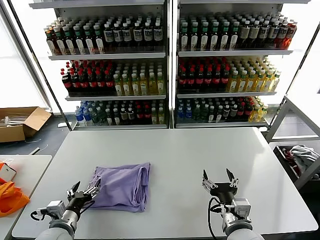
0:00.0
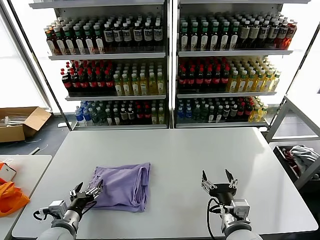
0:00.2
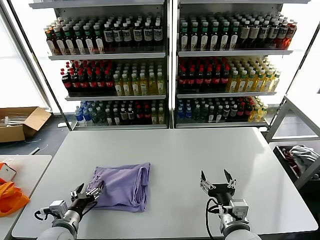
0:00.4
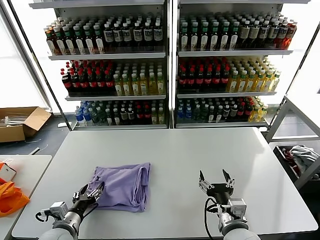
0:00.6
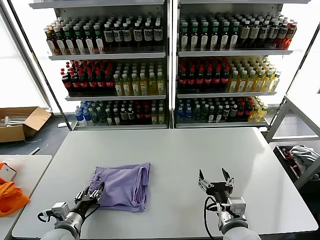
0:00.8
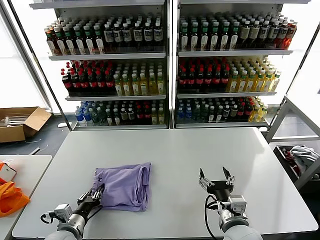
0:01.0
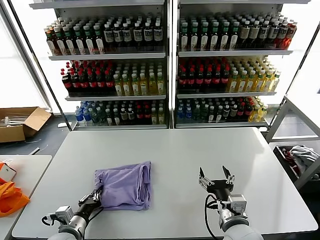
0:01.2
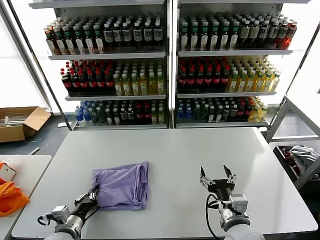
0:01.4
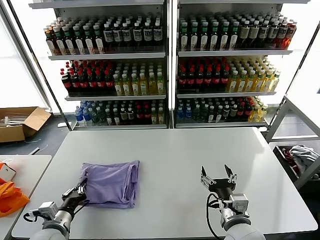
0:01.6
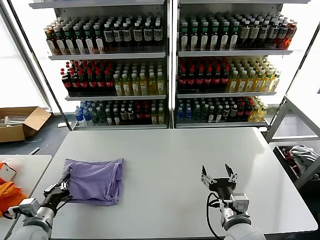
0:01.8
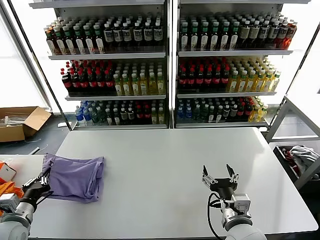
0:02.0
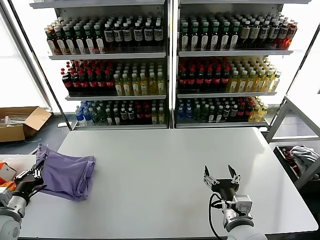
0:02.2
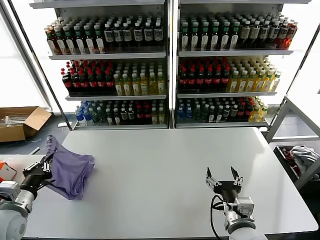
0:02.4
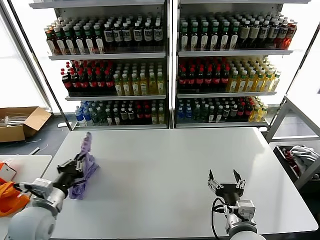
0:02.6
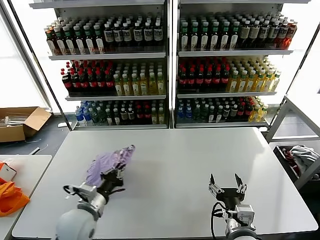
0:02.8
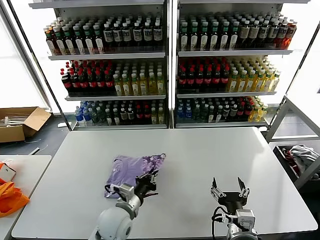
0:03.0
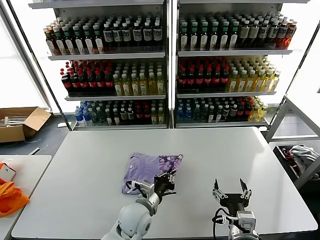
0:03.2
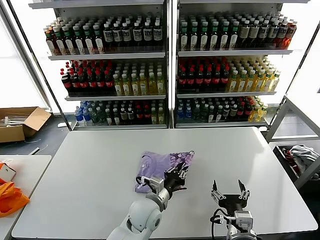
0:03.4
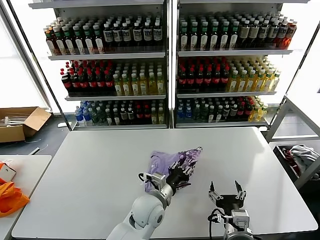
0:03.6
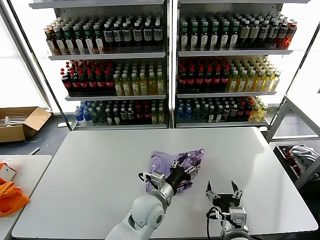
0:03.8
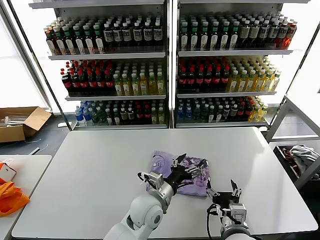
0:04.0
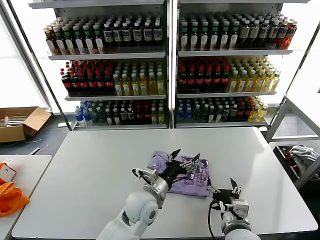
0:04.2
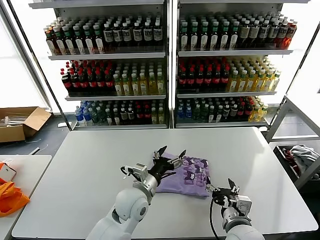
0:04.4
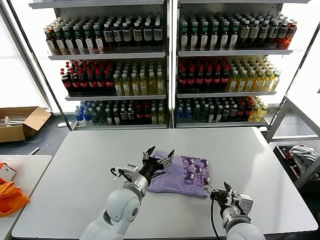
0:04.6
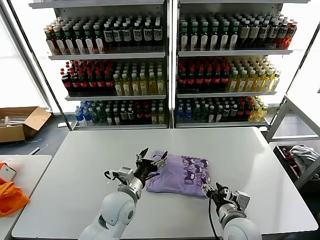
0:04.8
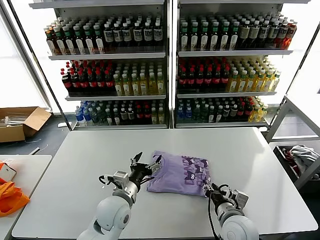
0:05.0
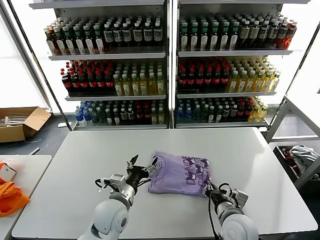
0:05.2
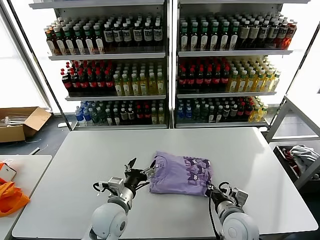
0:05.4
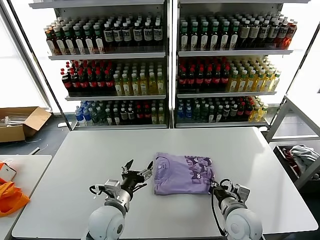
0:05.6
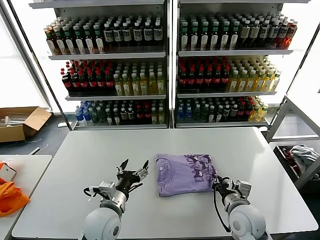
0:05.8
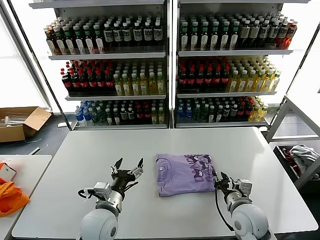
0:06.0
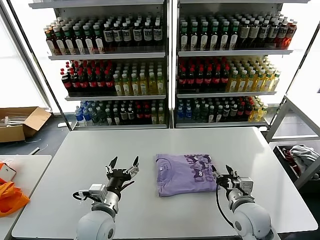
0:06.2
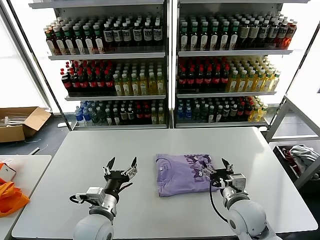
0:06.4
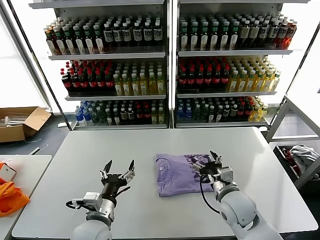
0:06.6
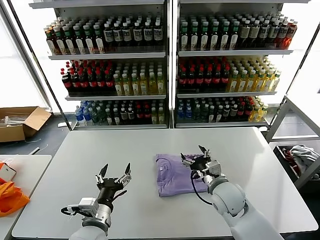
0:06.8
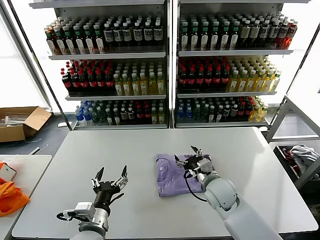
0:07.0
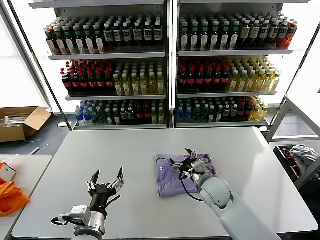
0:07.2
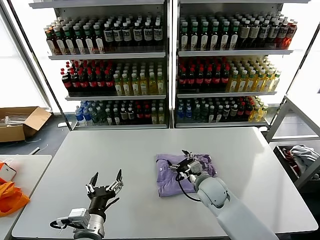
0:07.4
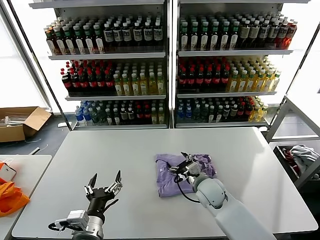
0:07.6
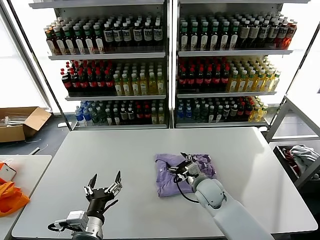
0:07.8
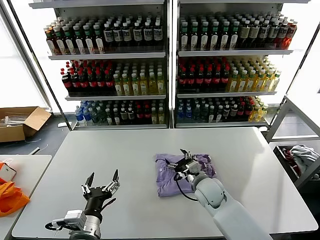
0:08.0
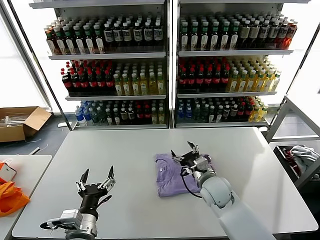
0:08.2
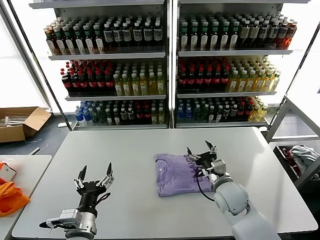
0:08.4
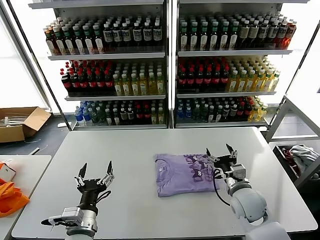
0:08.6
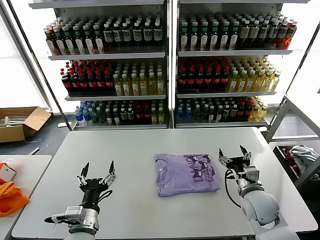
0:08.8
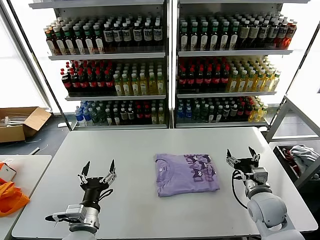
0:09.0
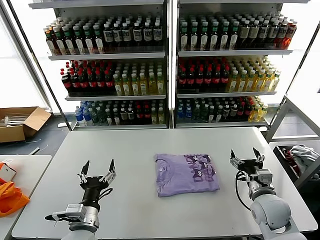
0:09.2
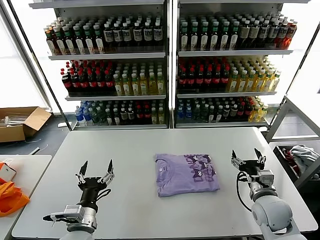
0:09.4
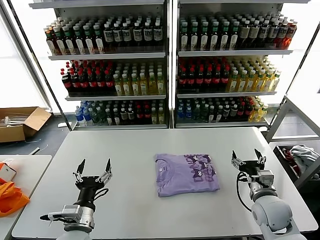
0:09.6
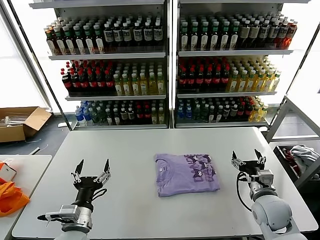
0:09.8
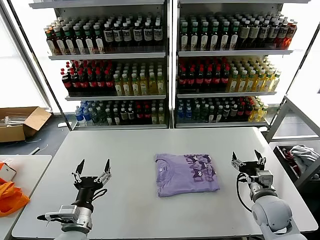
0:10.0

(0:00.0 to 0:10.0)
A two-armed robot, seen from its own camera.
Task of the whole recording: fold and organize the clothes.
Step, 0:00.0 - 0:03.8: Flip the folded clothes over with left gripper.
Step, 0:04.0 - 0:08.2: Drag the clothes to the center of the table.
0:00.0 - 0:01.4: The left gripper closes its fingers.
0:01.4 - 0:02.8: The left gripper is displaced upward by roughly 10 cm, and reaches about 15 cm to the left, then returns.
0:02.8 - 0:04.2: The left gripper shifts about 25 cm to the right, and opens up.
0:04.2 - 0:05.8: The left gripper is displaced to the left by about 10 cm, while the right gripper is displaced forward by roughly 5 cm, and closes up.
0:05.8 - 0:07.2: The left gripper travels backward by roughly 5 cm, while the right gripper shifts some 10 cm forward and to the left, and opens.
0:07.2 - 0:08.6: The right gripper goes about 5 cm to the right.
0:08.6 - 0:10.0: The right gripper is displaced to the right by some 10 cm.
